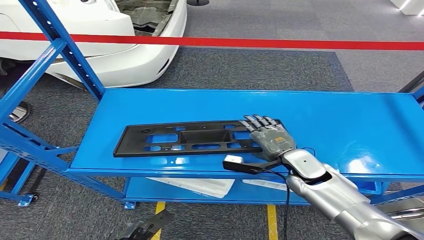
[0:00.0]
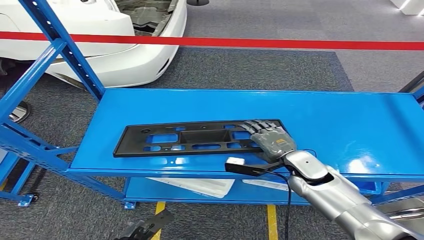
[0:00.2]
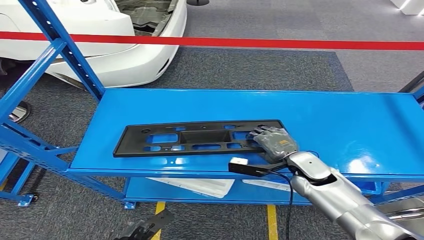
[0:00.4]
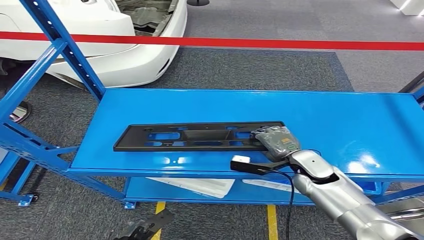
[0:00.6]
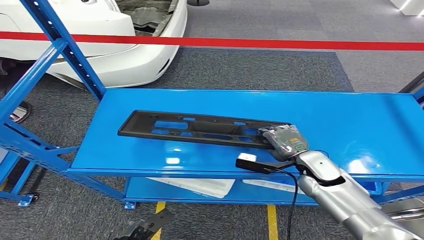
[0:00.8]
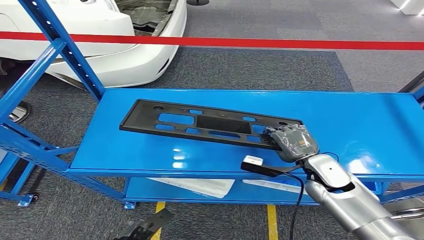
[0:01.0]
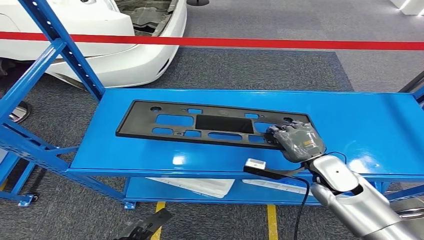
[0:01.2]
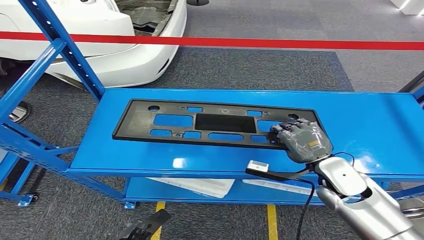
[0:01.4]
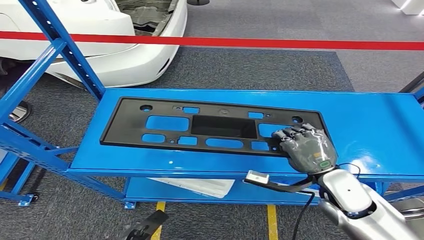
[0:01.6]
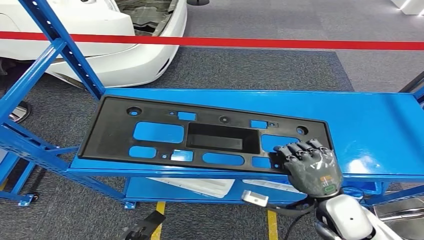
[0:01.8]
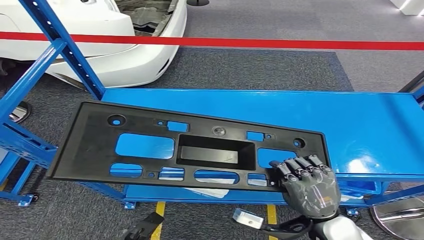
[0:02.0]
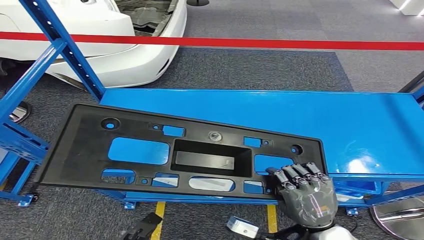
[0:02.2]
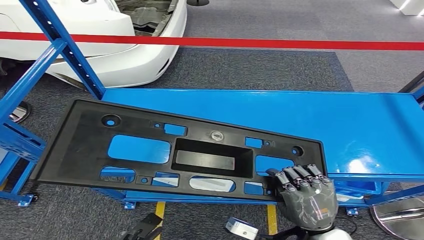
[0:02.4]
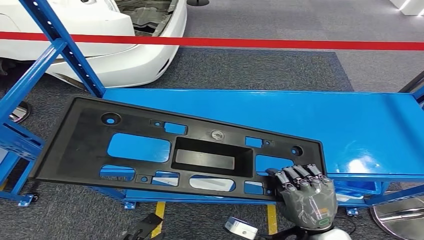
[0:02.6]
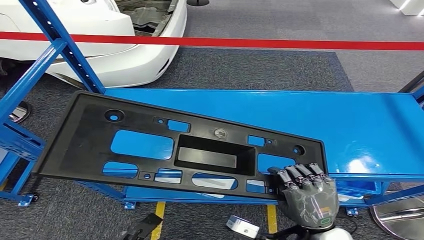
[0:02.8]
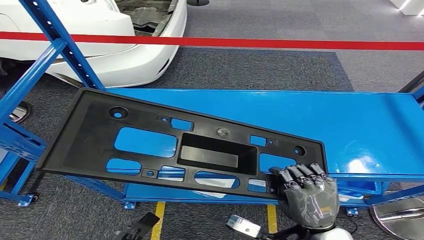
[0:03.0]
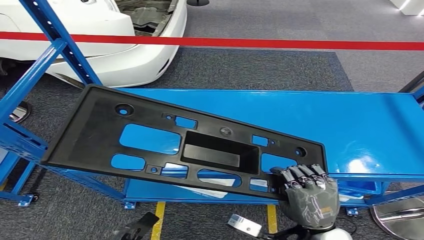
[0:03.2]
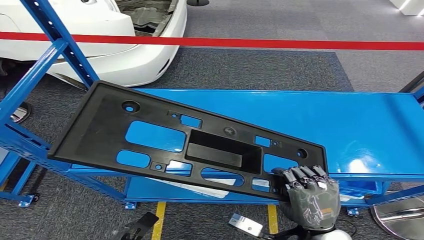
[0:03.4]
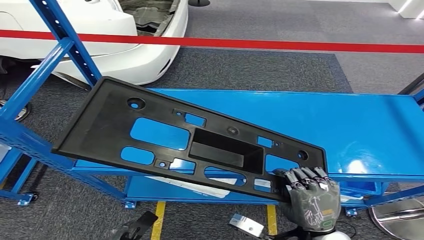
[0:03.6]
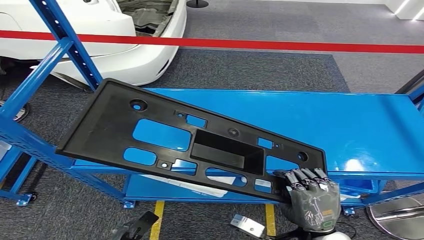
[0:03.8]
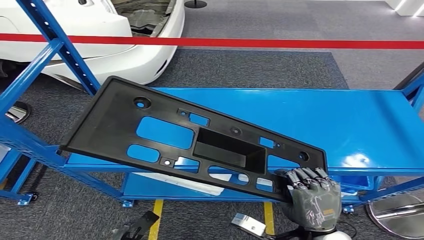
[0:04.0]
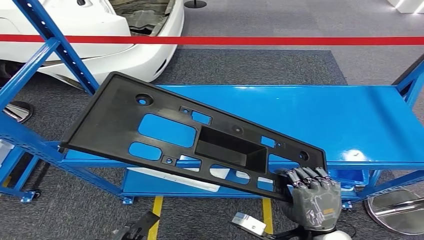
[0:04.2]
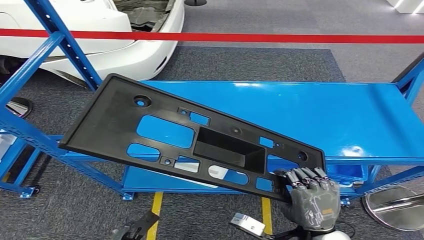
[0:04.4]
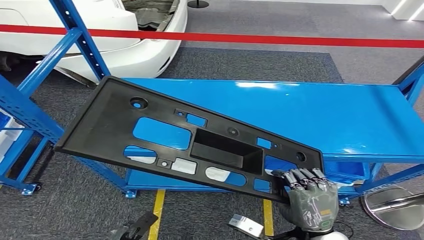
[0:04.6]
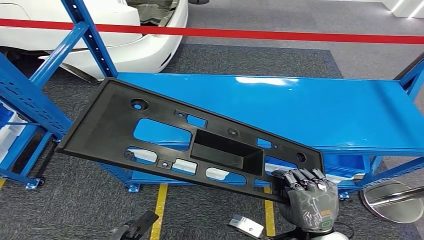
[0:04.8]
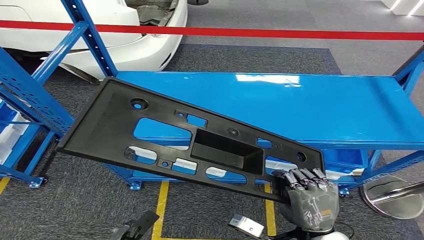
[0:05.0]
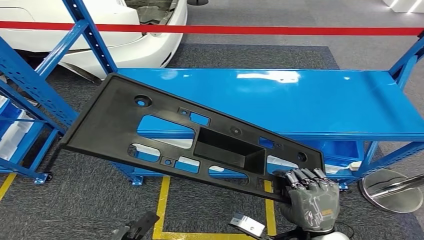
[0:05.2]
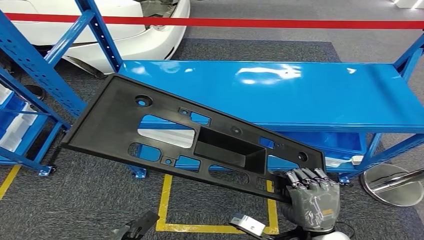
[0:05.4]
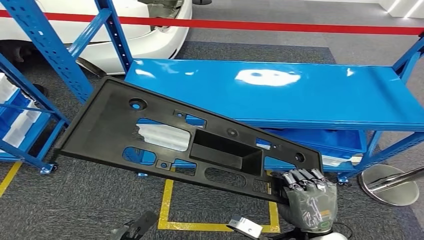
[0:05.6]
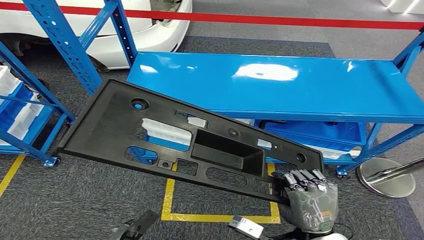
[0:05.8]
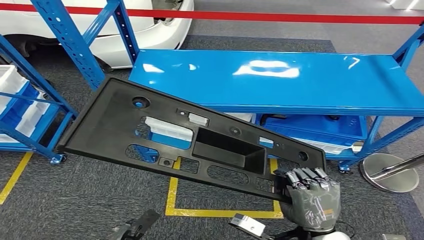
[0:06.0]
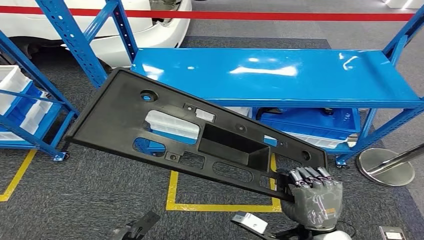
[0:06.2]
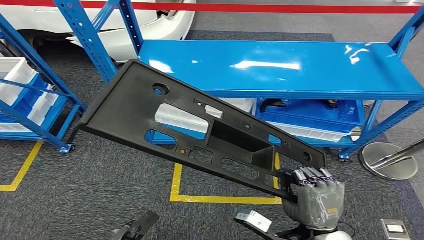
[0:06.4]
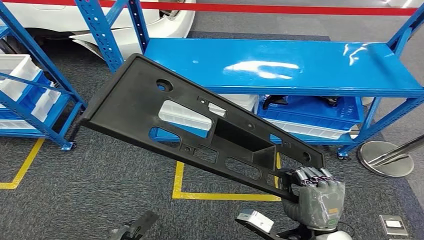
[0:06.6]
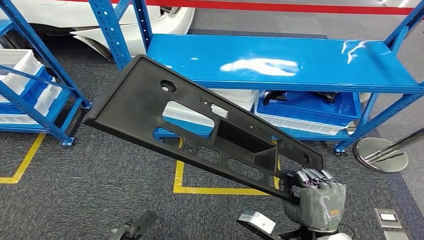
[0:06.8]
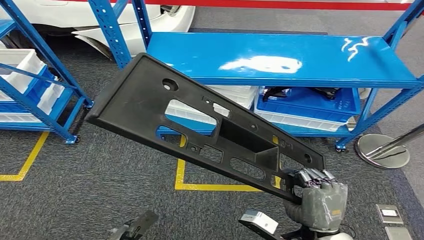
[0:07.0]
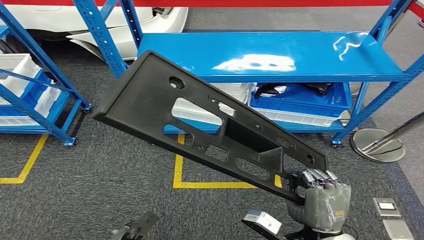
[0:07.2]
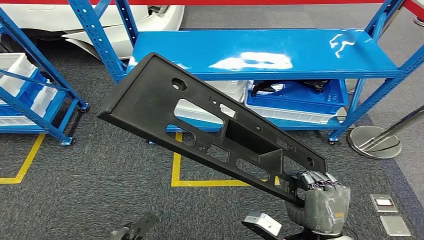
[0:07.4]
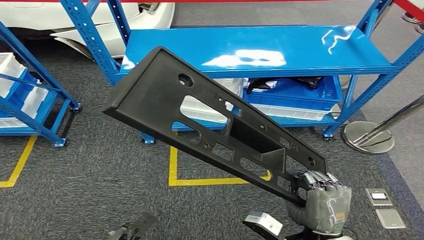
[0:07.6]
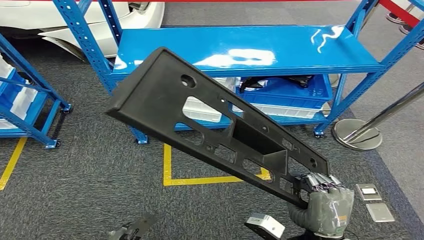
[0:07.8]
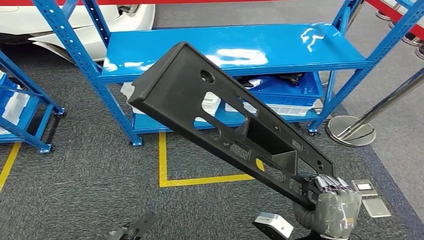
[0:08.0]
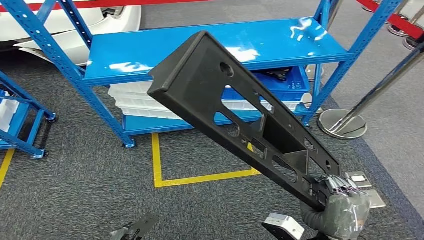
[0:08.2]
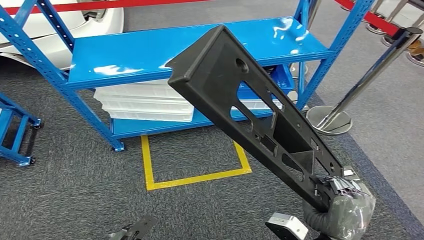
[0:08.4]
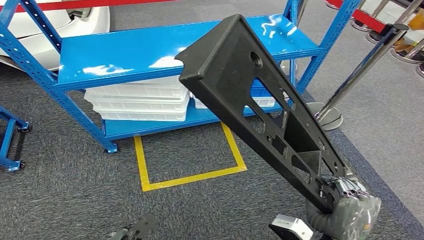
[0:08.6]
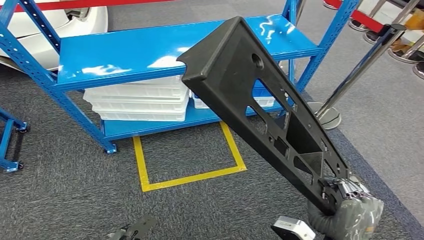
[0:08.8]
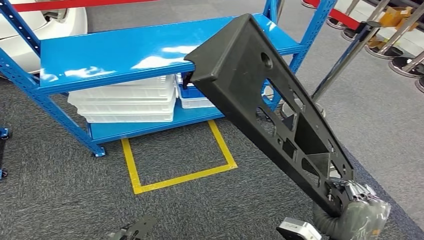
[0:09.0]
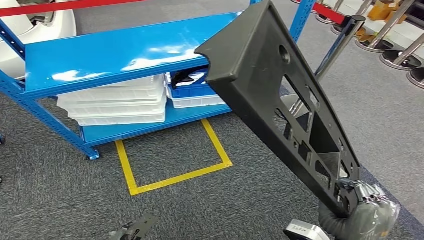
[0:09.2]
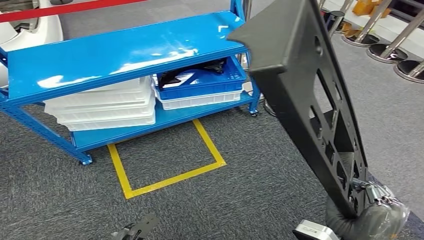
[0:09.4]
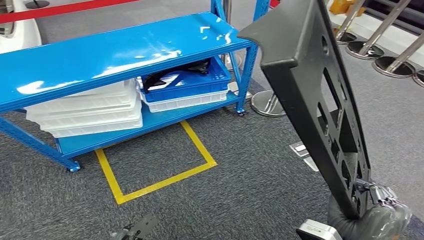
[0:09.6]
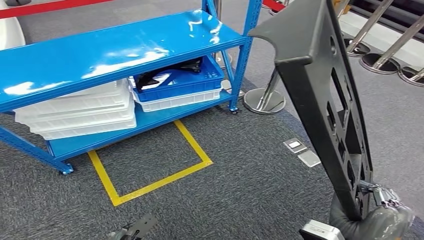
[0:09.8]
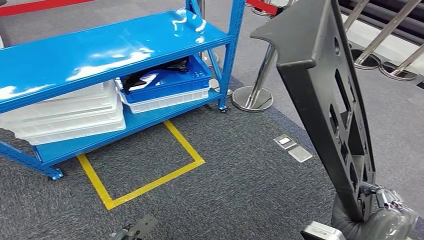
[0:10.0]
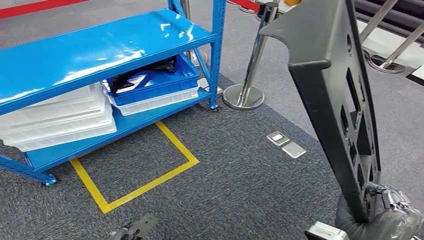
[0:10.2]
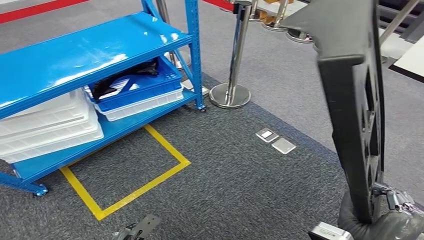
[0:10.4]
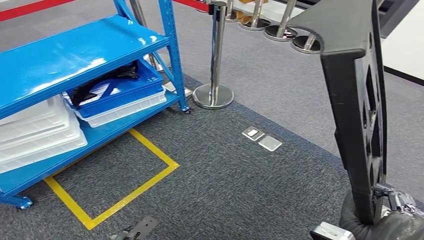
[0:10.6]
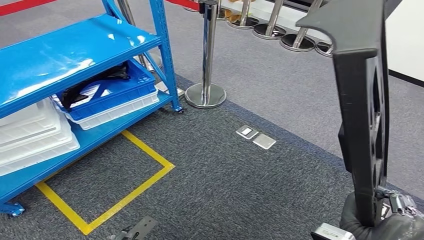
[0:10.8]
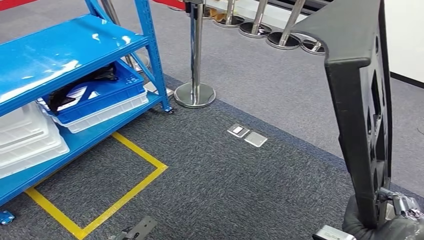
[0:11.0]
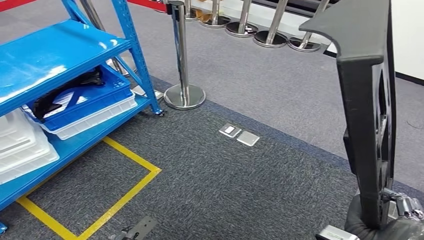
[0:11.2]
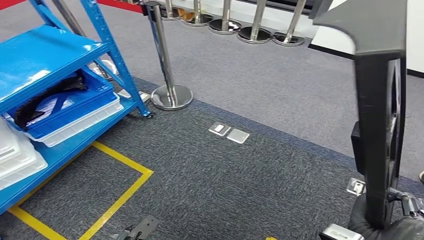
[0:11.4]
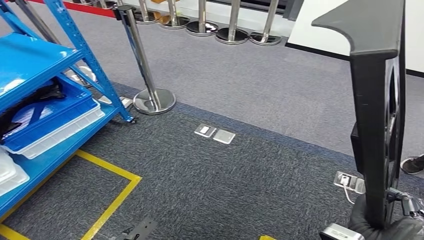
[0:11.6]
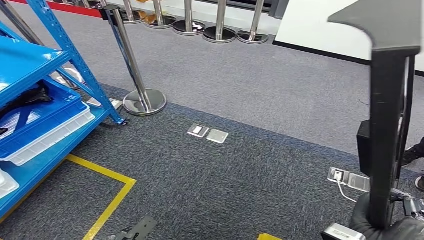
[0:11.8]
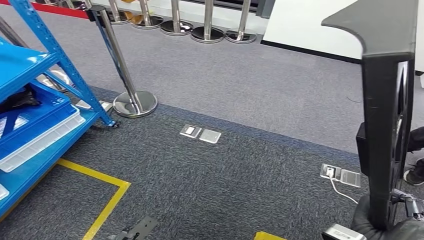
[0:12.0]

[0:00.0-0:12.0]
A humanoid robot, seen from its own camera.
0:00.0 to 0:01.6: The right hand moves backward, roughly 5 cm.

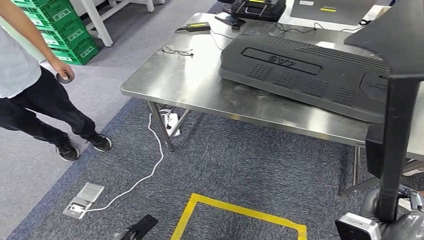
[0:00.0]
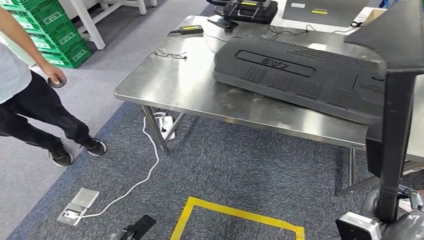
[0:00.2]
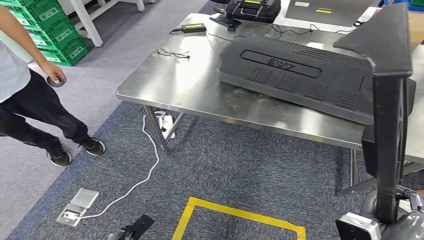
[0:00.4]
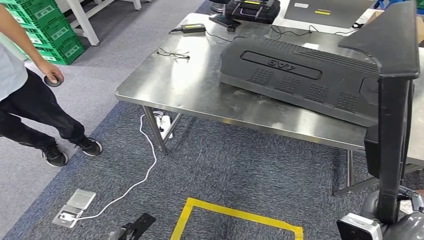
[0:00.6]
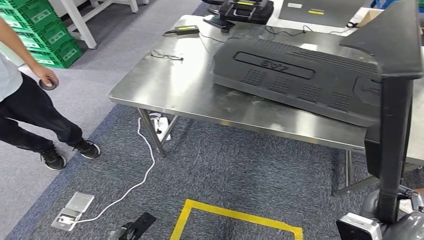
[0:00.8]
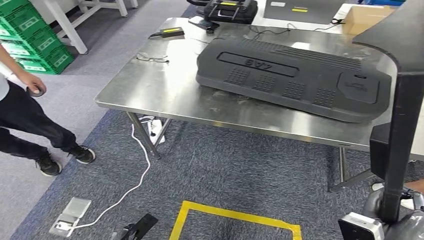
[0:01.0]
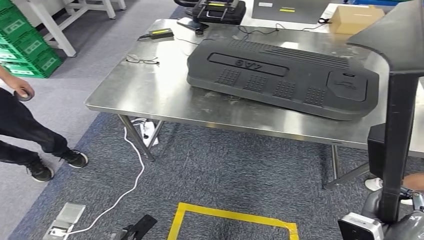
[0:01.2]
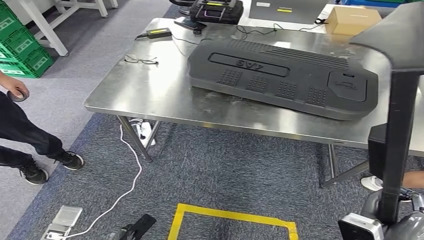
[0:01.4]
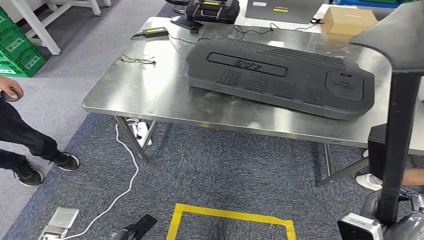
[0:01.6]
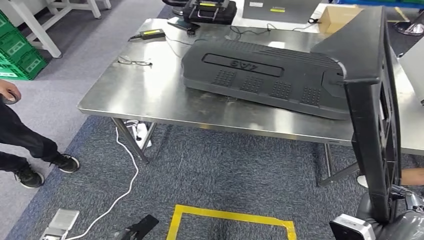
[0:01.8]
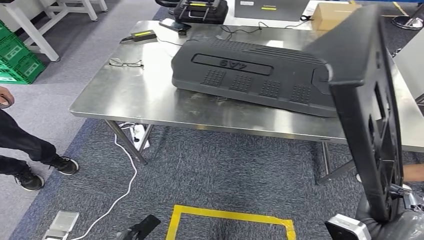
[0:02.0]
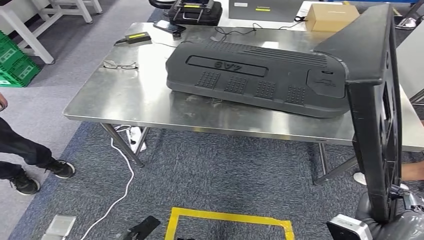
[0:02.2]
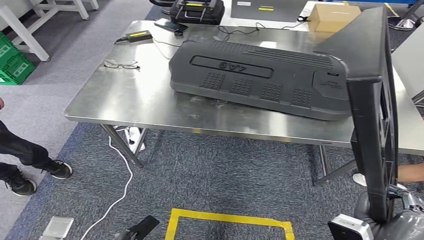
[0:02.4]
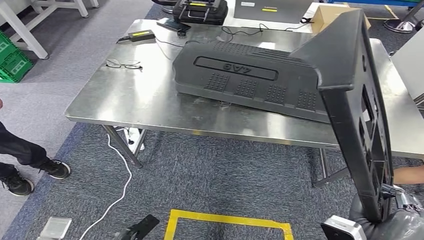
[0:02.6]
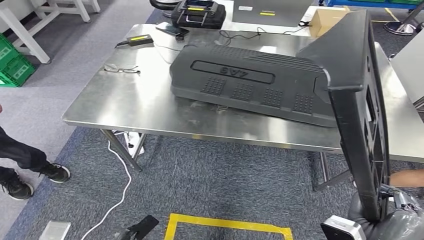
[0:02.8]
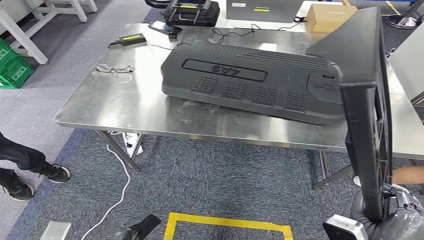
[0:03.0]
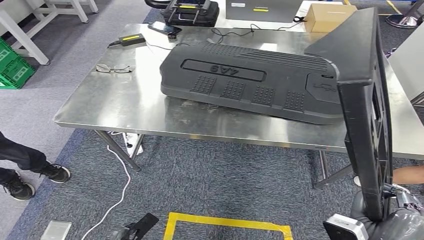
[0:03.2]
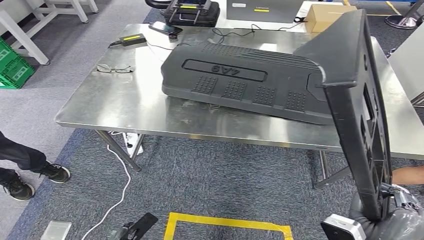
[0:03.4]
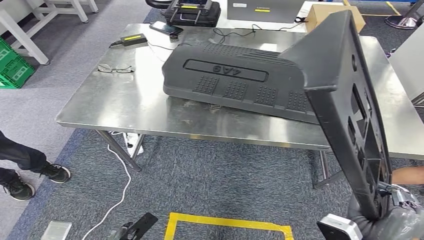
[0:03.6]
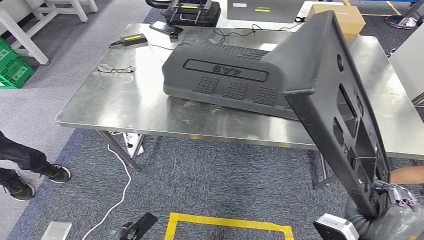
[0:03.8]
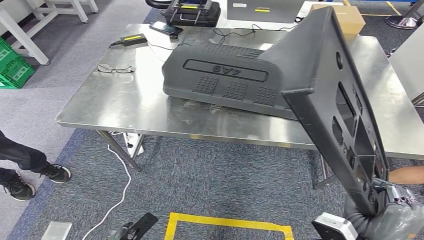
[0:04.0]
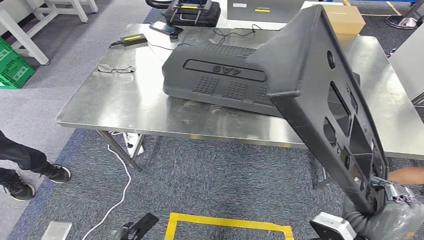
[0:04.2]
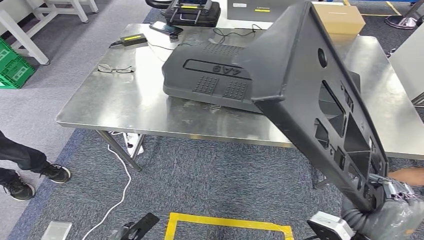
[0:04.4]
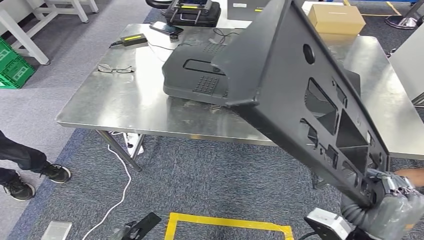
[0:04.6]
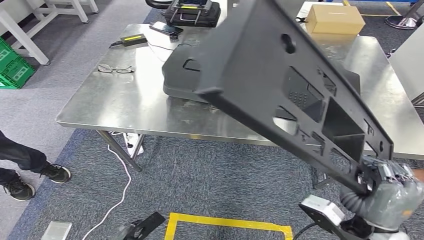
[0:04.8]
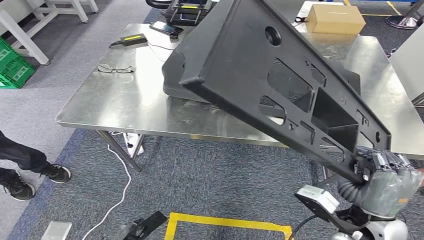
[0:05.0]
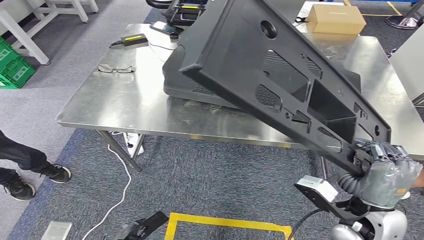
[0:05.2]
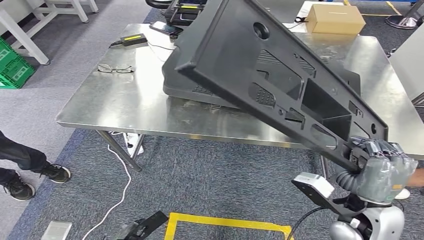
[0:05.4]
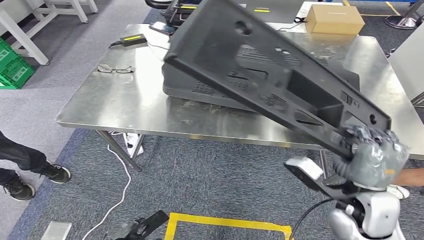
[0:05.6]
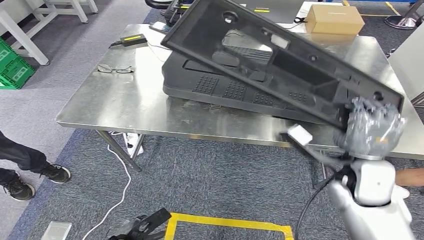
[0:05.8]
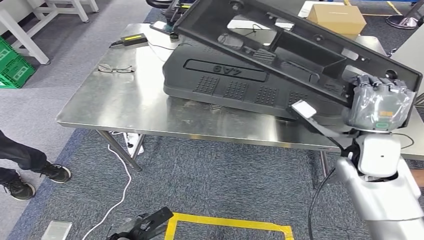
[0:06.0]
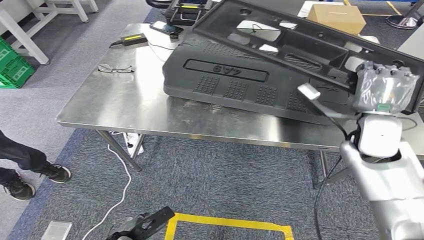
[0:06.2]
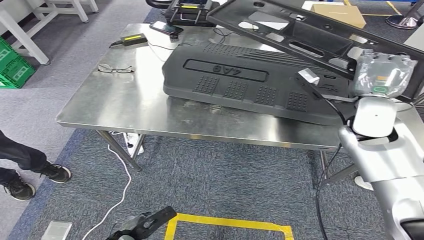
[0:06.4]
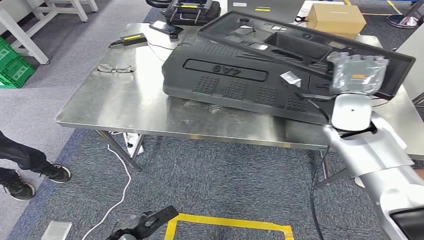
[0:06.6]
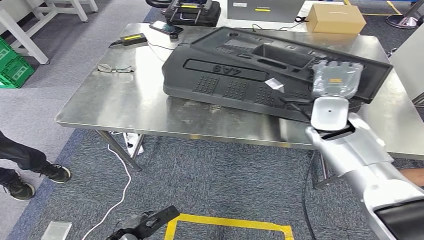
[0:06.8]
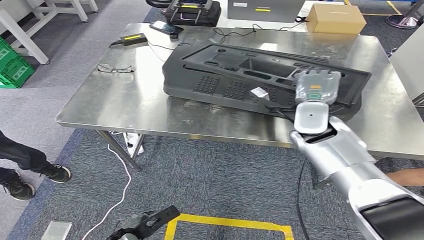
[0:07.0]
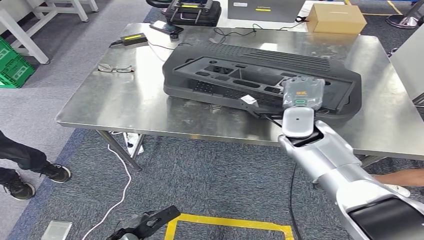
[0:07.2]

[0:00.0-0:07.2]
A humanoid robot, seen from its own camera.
Step, 0:00.0 to 0:03.2: Move the large material to the front of the workbench.
